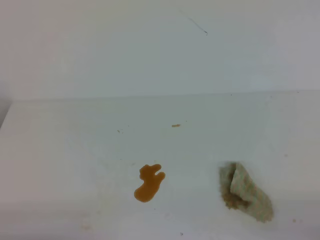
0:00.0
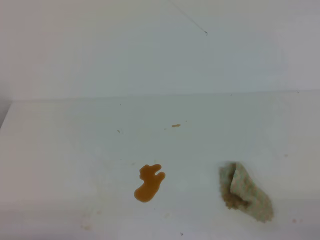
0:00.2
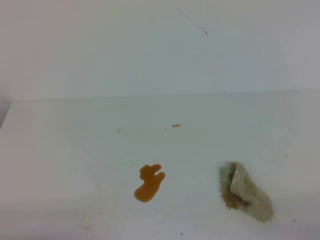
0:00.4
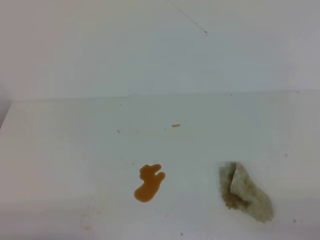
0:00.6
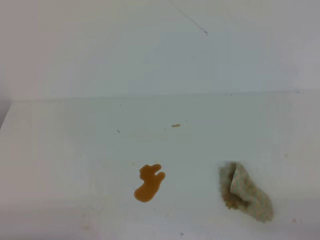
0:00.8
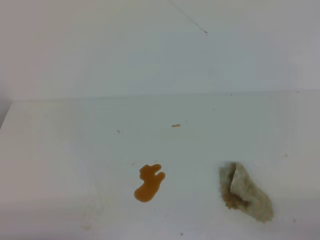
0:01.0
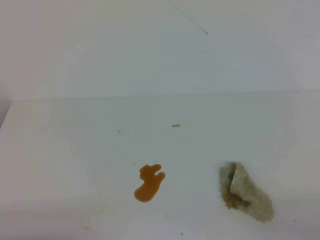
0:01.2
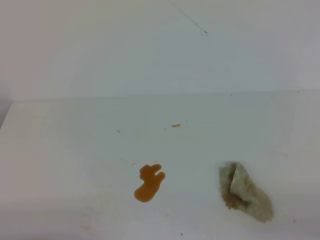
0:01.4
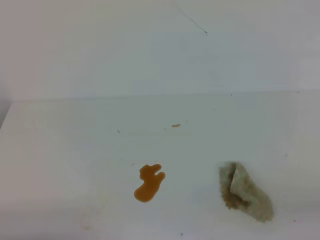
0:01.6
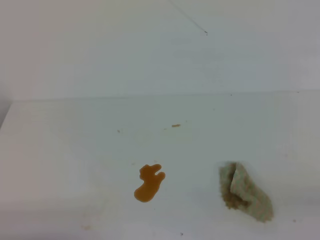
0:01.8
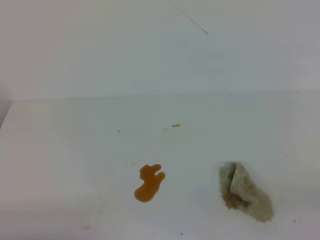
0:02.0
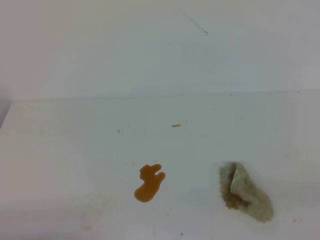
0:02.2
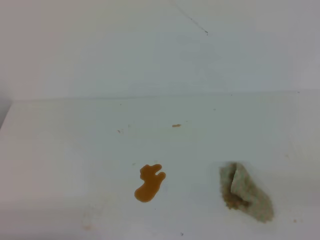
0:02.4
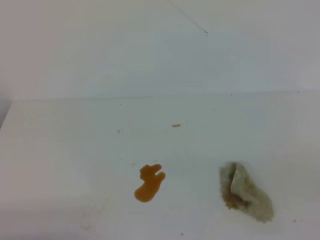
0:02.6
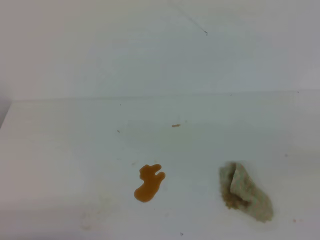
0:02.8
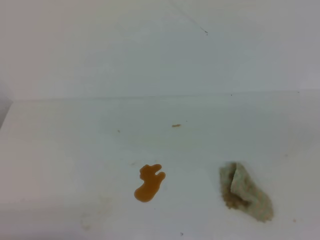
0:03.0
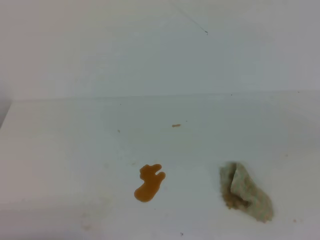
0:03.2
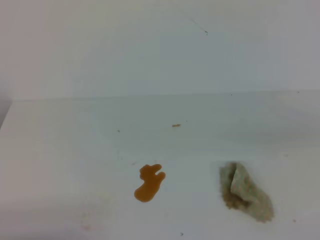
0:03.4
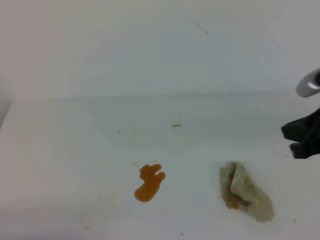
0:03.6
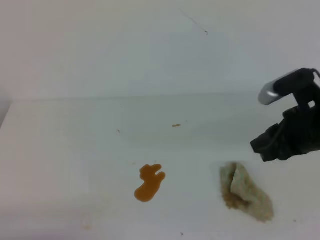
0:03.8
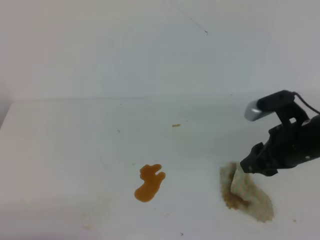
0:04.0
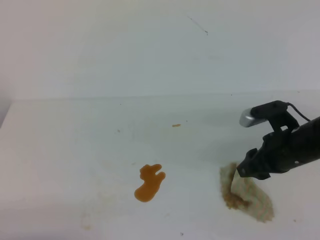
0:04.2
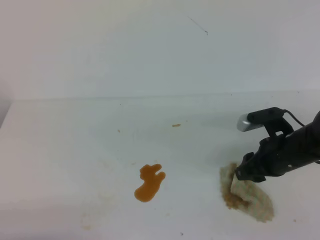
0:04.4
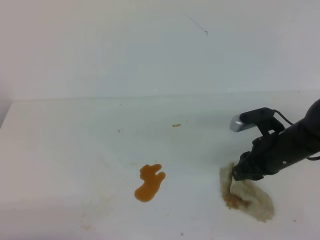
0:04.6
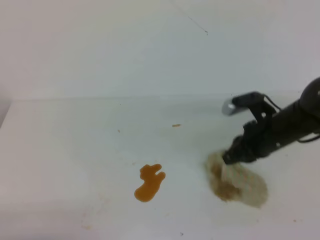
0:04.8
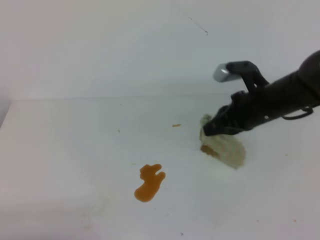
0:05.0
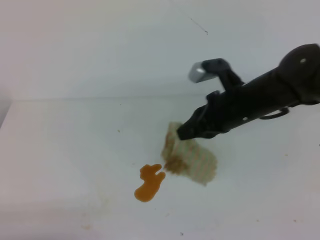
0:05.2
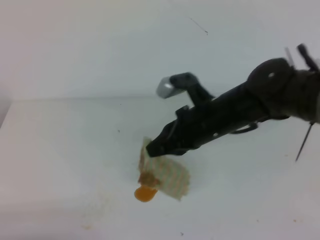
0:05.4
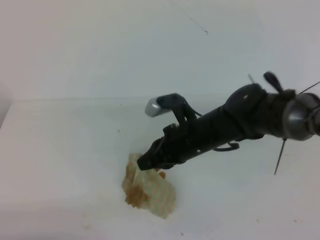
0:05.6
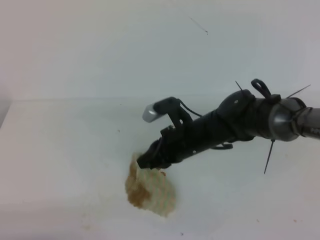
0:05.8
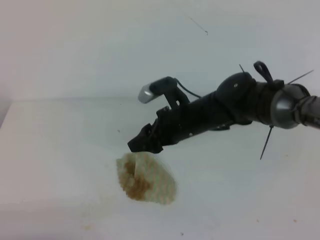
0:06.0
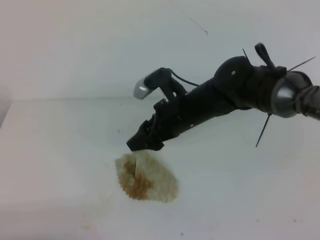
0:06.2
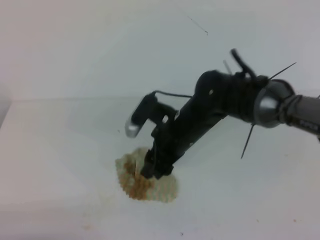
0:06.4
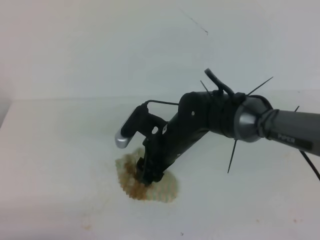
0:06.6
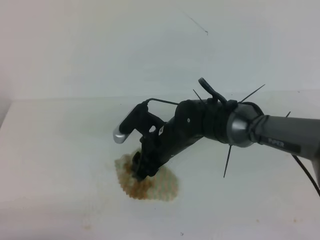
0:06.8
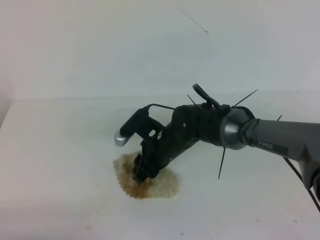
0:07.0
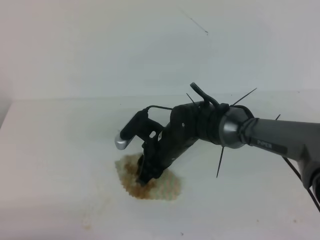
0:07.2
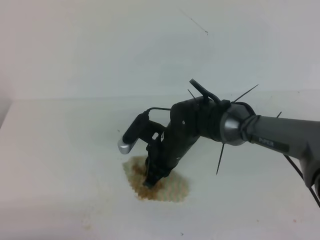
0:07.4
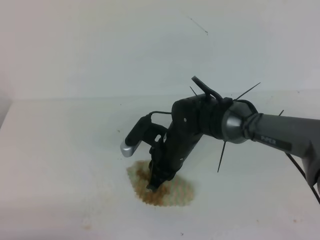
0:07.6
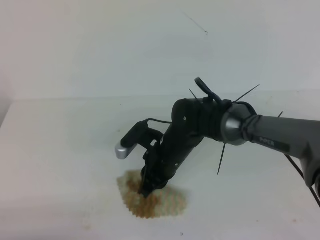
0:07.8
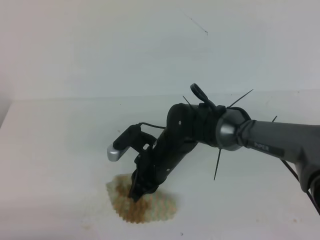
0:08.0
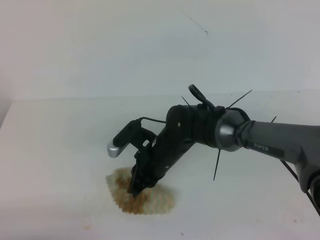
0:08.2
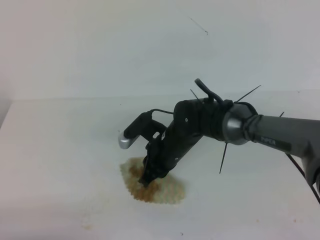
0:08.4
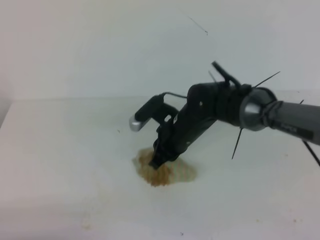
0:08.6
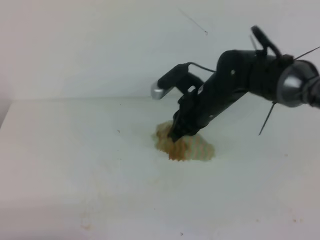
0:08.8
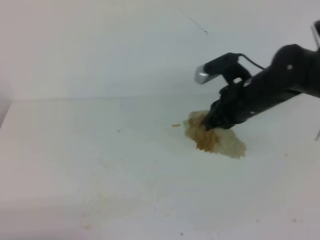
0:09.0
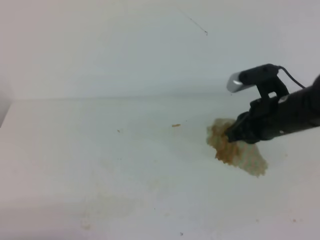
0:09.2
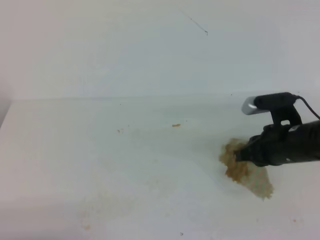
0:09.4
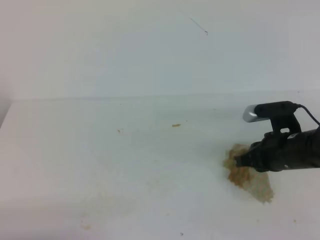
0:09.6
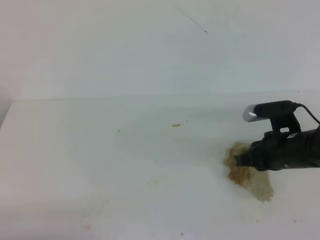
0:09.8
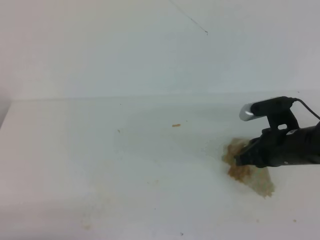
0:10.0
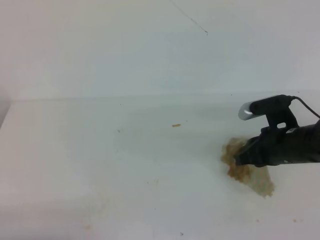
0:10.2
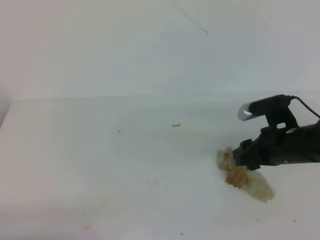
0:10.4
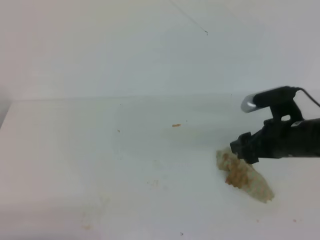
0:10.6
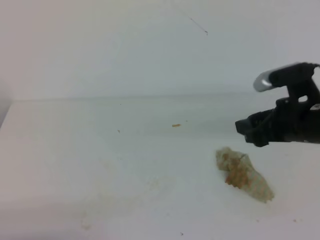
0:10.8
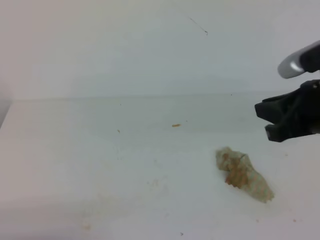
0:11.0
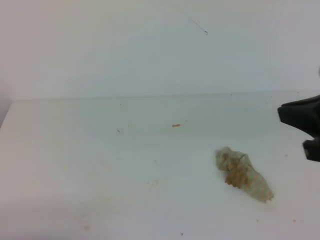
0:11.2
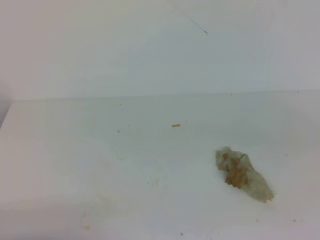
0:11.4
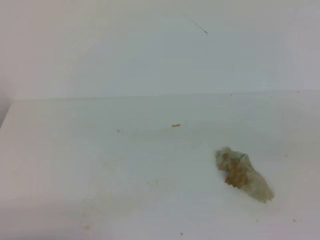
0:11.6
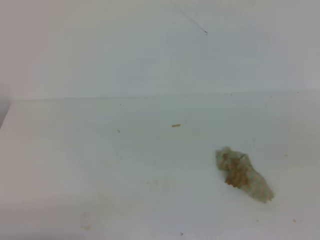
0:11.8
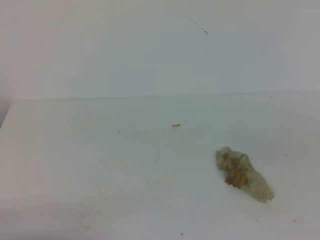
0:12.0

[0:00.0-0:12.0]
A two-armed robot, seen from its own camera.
0:03.0 to 0:04.4: The right gripper shifts some 30 cm forward, downward and to the left, and opens its fingers.
0:04.4 to 0:06.0: The right gripper shifts roughly 15 cm to the left, and closes and opens again.
0:06.0 to 0:07.6: The right gripper is displaced downward by about 5 cm, and closes.
0:07.6 to 0:09.0: The right gripper is displaced to the right and upward by approximately 15 cm.
0:09.0 to 0:10.4: The right gripper shifts about 10 cm to the right and backward, and opens its fingers.
0:10.4 to 0:12.0: The right gripper heads backward, upward and to the right, covering roughly 25 cm, and closes its fingers.

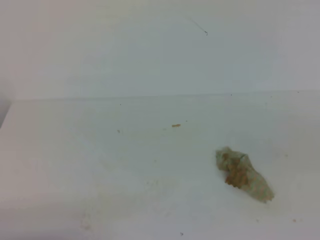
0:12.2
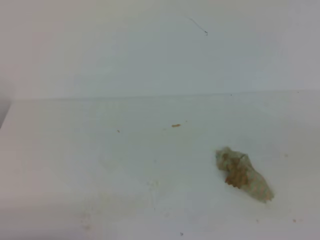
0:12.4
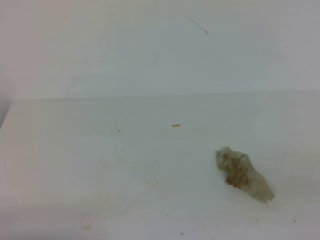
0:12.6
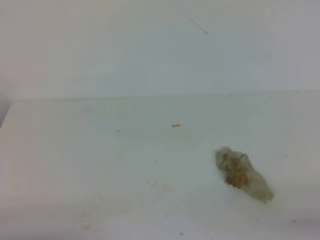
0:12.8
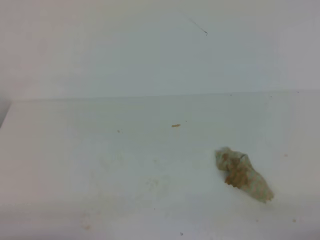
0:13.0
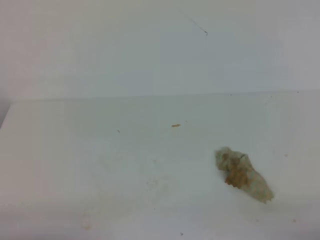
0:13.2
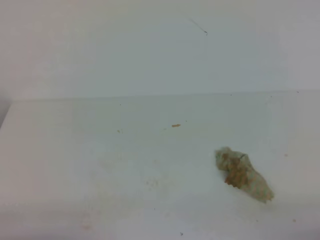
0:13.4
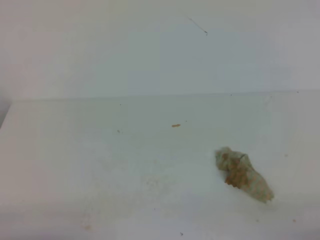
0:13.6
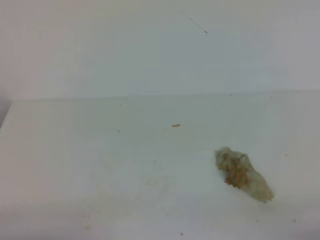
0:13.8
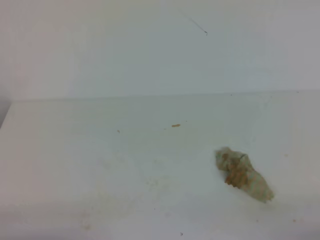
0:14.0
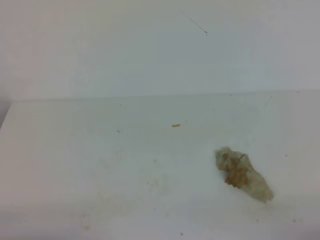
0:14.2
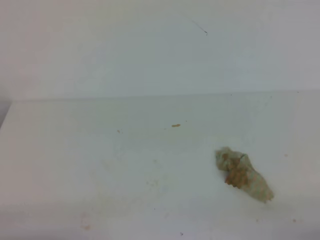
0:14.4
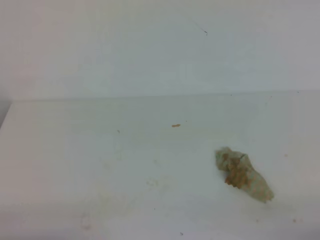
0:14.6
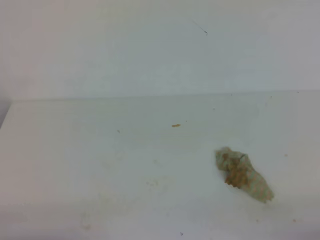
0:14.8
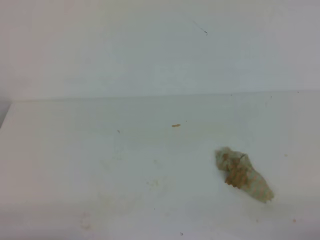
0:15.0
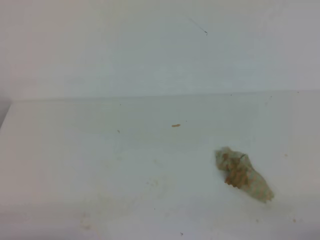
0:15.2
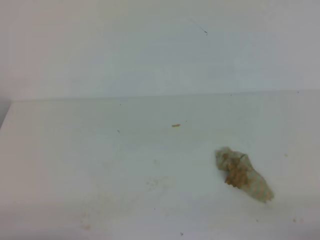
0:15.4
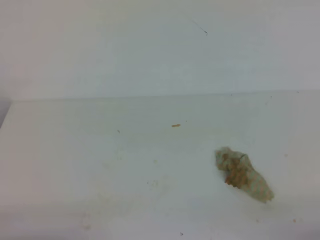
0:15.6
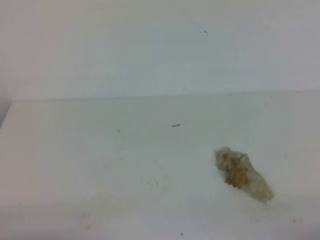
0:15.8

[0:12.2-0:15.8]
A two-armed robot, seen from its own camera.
0:14.0 to 0:15.8: Neither gripper changes place.
